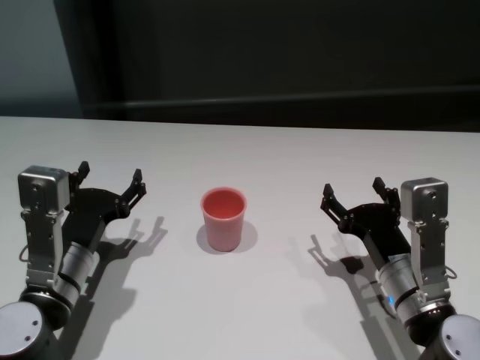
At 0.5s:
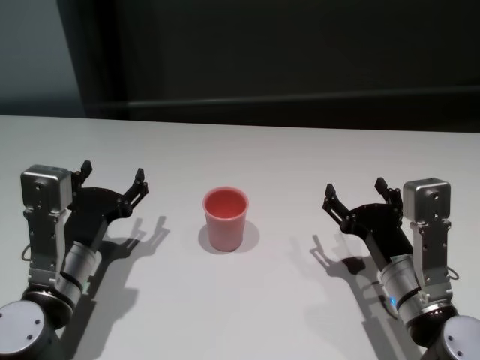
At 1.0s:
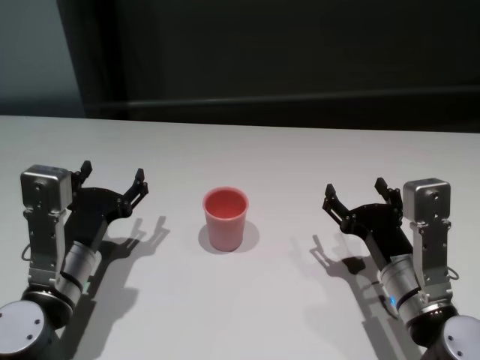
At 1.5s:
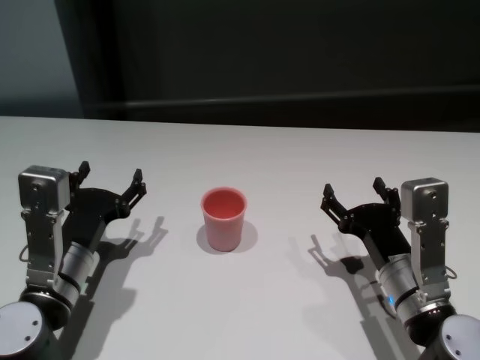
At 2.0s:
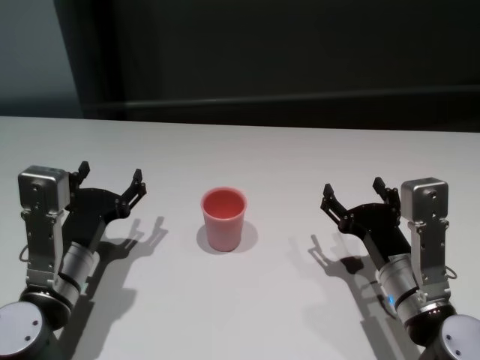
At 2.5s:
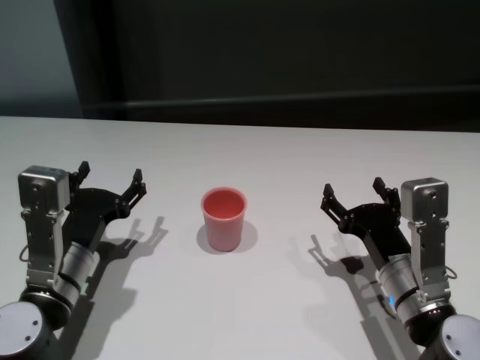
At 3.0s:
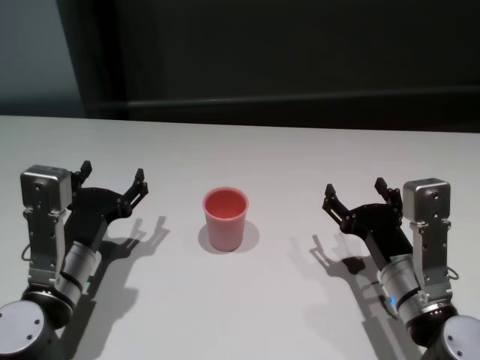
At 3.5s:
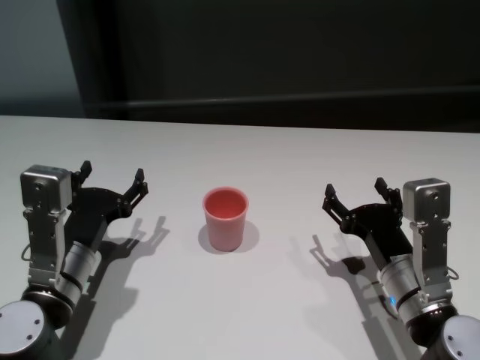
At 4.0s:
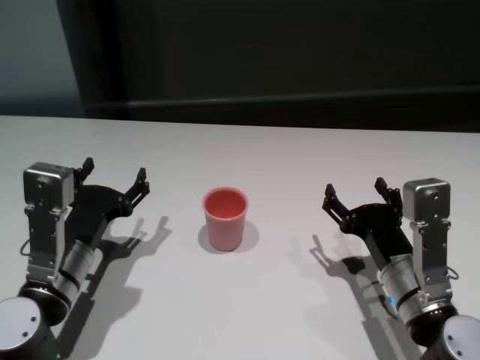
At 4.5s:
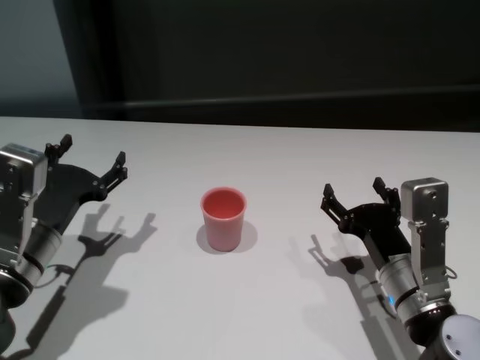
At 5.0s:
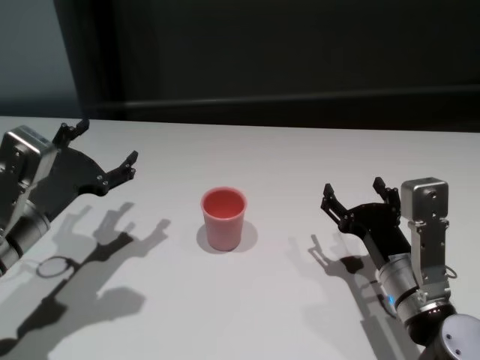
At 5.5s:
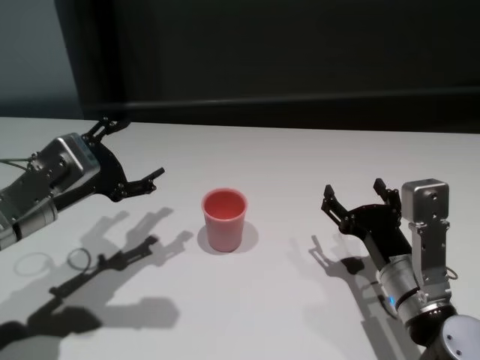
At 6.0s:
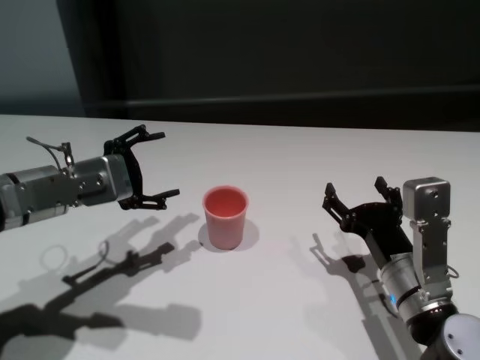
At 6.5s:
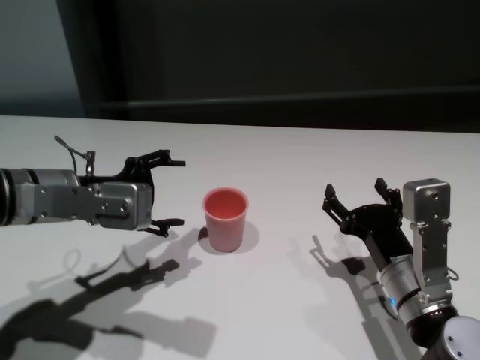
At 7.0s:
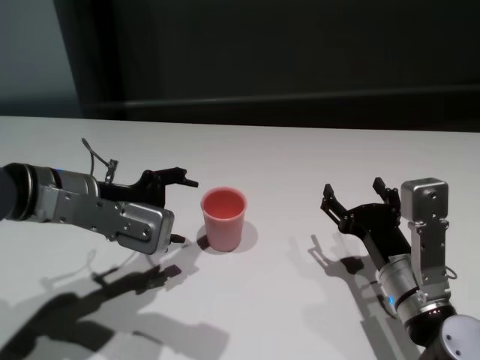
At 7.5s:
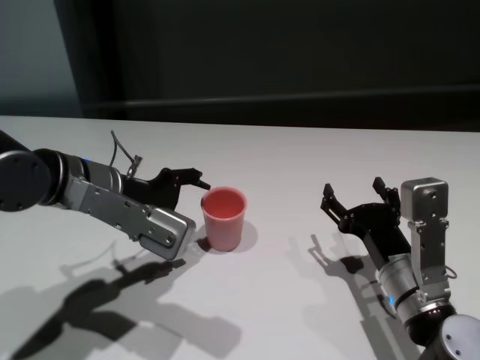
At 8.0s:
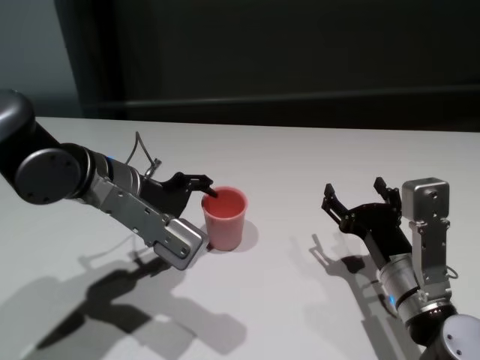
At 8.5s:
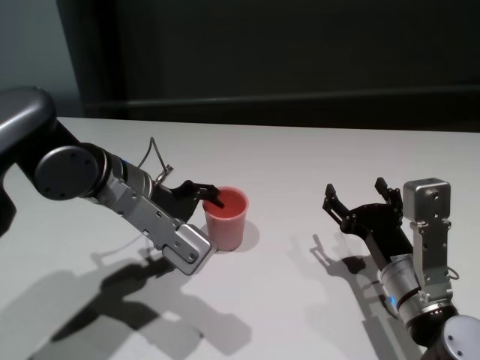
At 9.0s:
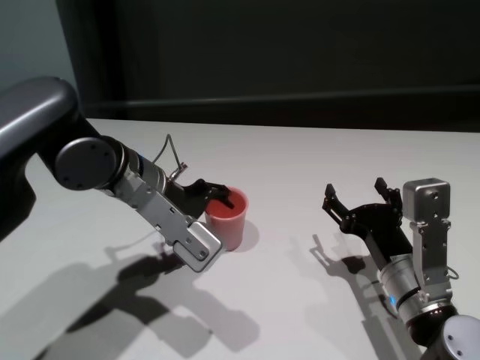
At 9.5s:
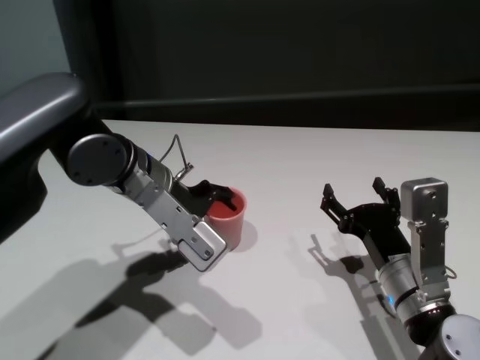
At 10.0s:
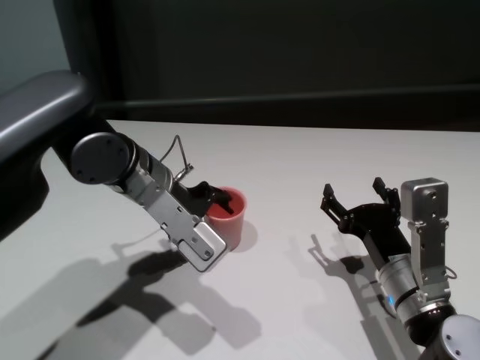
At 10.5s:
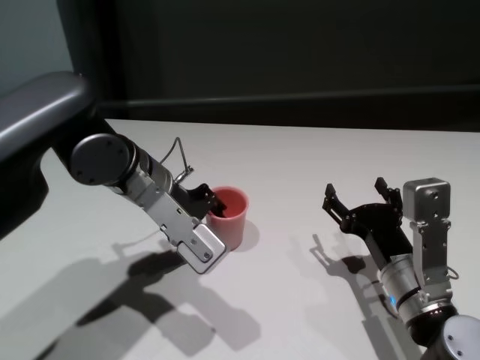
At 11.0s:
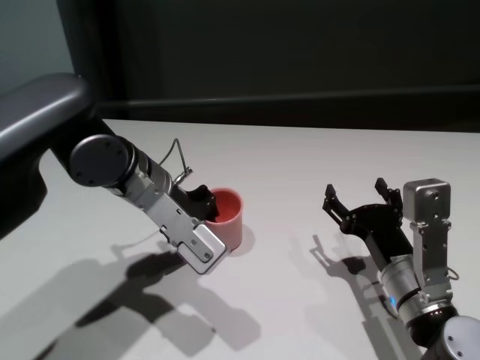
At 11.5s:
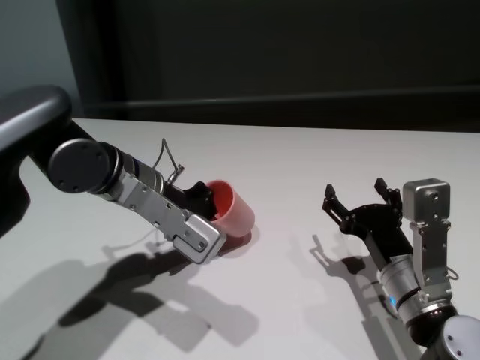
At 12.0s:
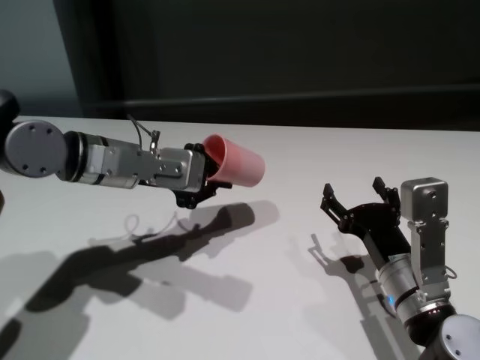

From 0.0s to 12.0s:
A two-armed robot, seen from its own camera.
Task of the whole recording: On the white table pick up the cup with one hand and transfer it to the other hand before turning it over.
Step, from 0.0s to 10.5s: Grasp the cup with left gripper.

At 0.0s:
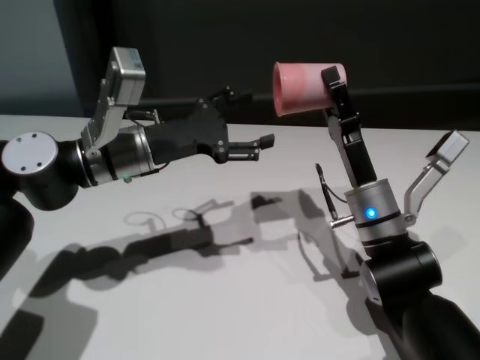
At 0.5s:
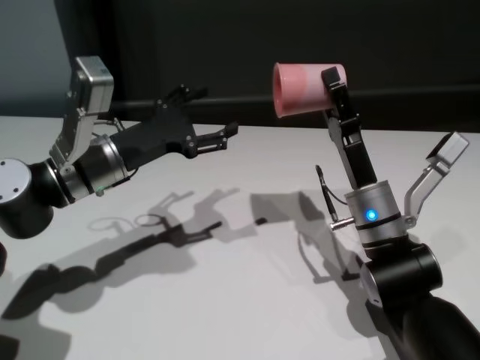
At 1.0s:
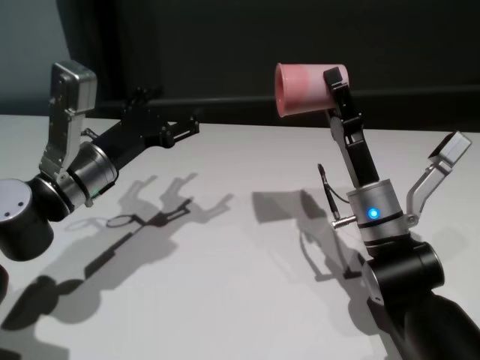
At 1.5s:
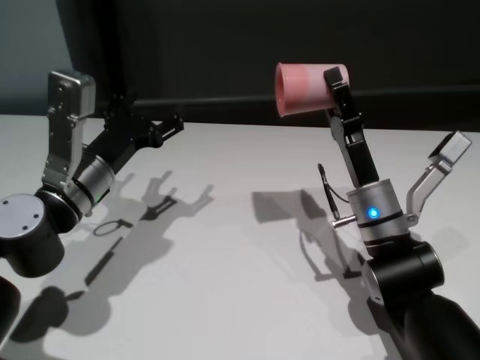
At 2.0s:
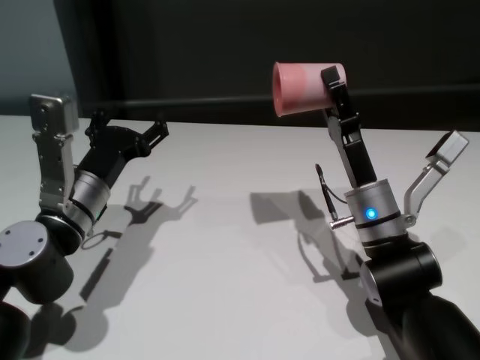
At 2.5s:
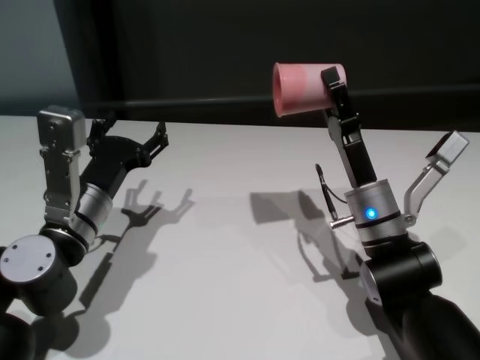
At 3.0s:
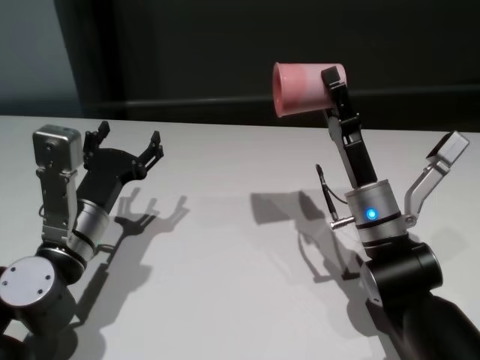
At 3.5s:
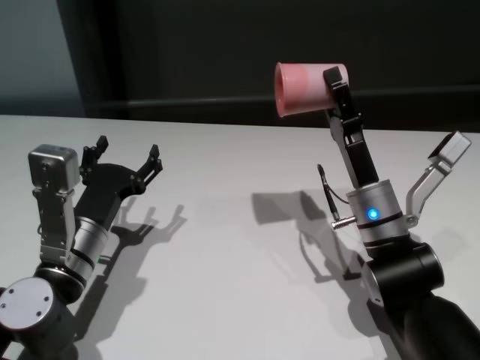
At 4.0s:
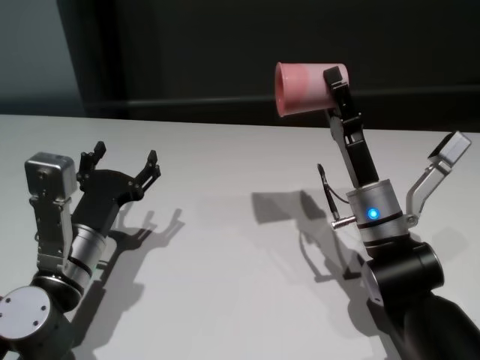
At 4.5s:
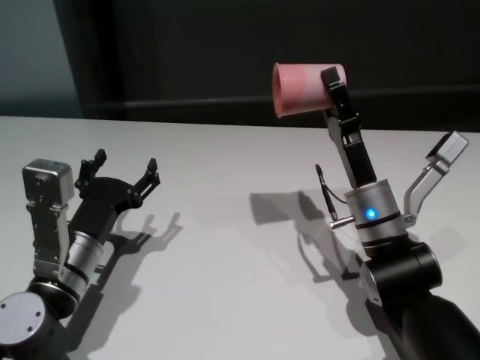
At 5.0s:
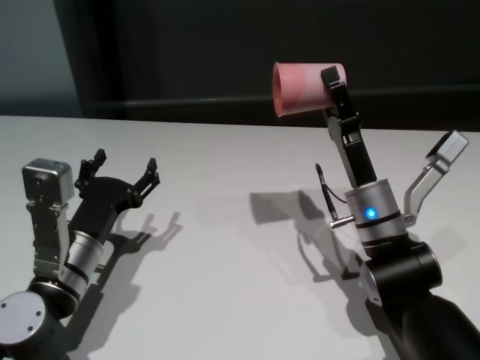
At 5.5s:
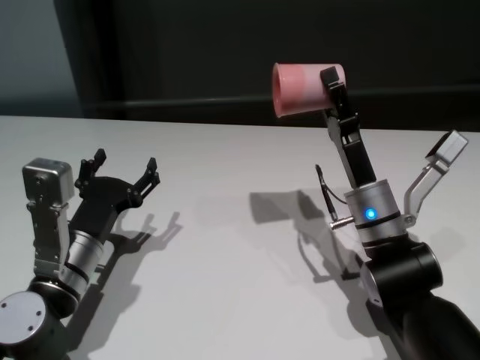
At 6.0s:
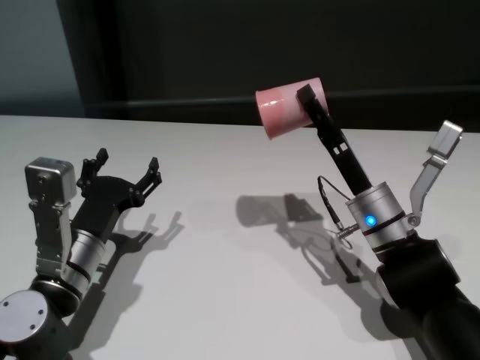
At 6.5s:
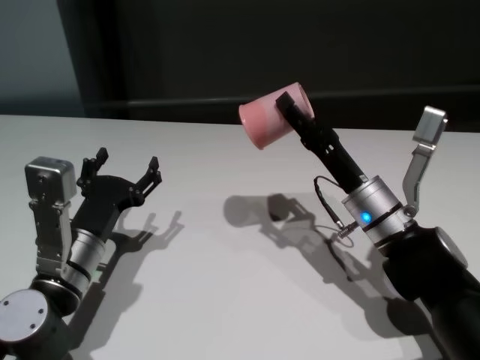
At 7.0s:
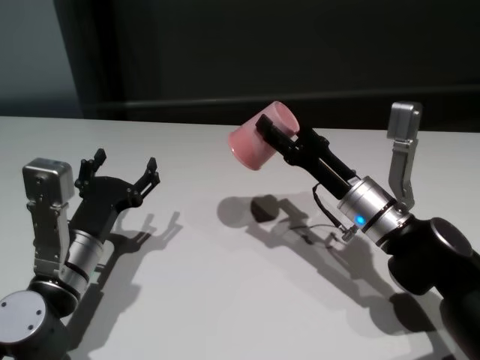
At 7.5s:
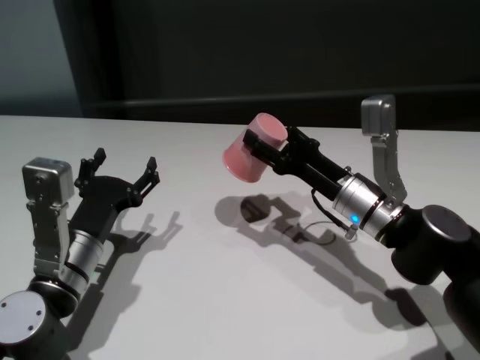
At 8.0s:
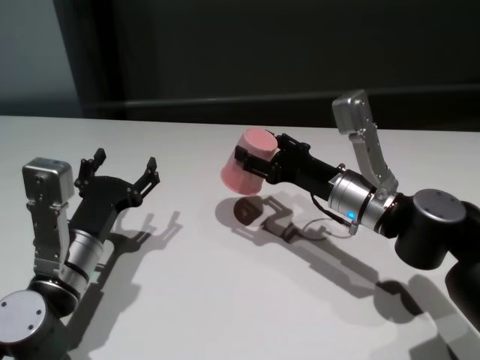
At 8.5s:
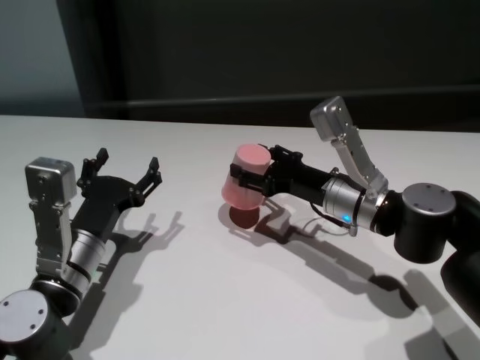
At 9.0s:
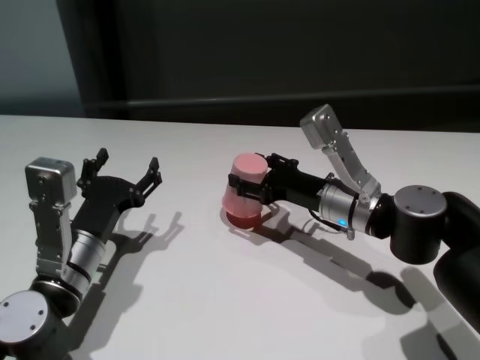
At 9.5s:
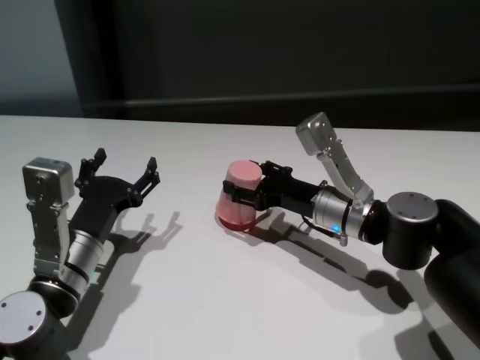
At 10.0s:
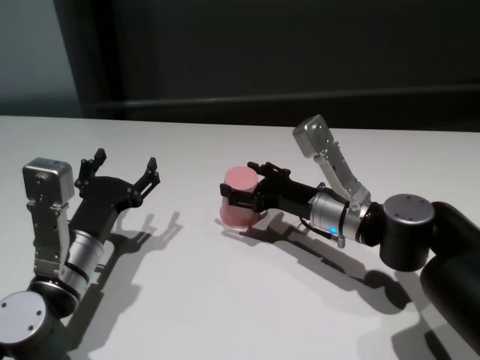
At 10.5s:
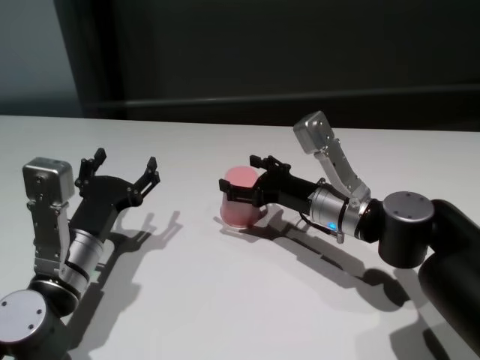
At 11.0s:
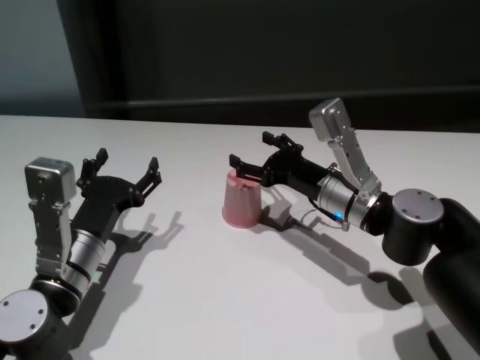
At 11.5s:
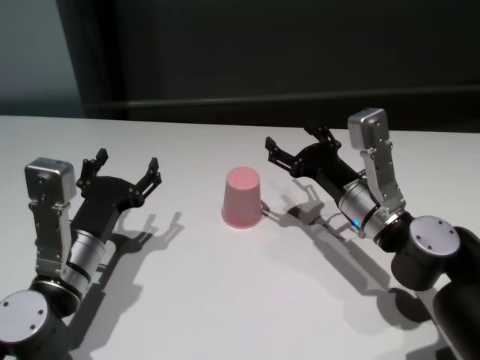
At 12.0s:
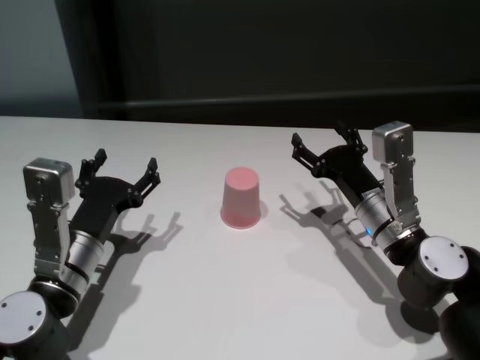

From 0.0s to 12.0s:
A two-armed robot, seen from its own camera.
Task of the whole recording: On the white table pick up the cup with one hand and transfer it to the other hand before turning it over.
Step, from 0.0s to 11.0s: Place the cup on the table with right gripper.
